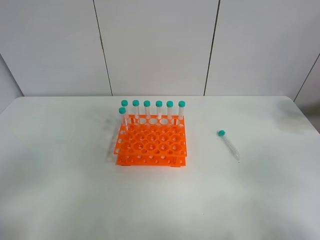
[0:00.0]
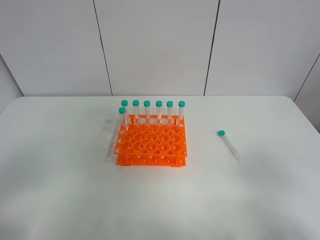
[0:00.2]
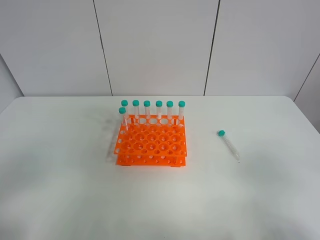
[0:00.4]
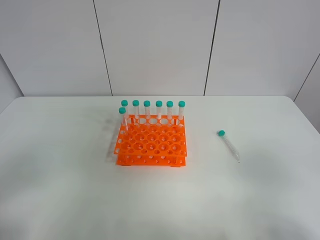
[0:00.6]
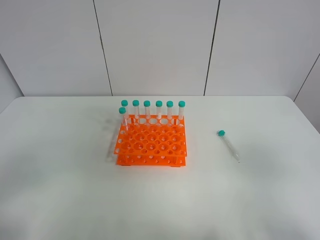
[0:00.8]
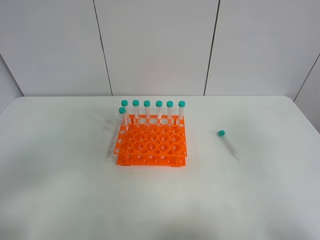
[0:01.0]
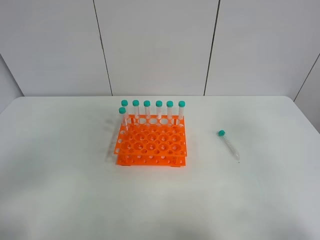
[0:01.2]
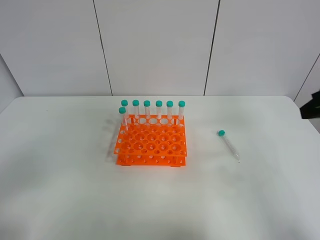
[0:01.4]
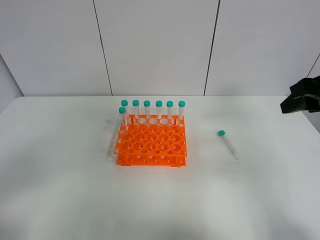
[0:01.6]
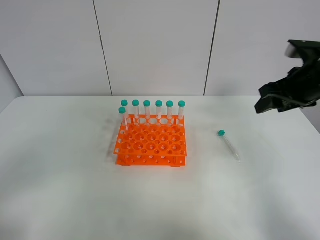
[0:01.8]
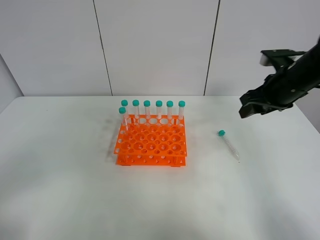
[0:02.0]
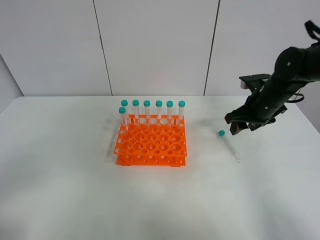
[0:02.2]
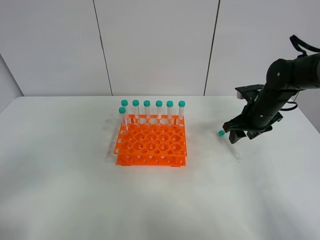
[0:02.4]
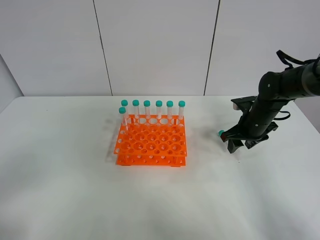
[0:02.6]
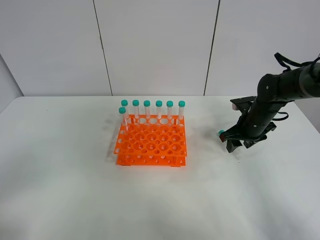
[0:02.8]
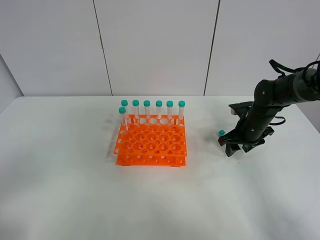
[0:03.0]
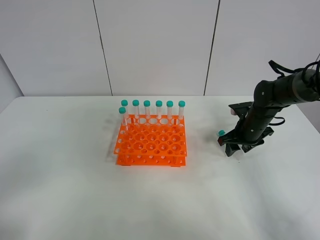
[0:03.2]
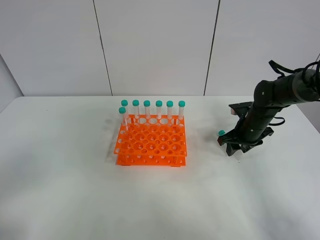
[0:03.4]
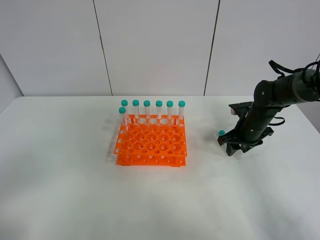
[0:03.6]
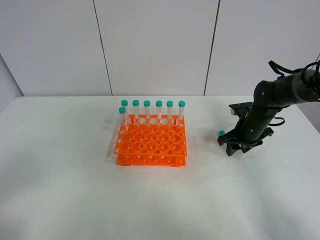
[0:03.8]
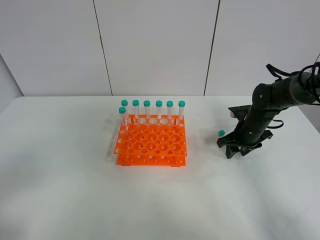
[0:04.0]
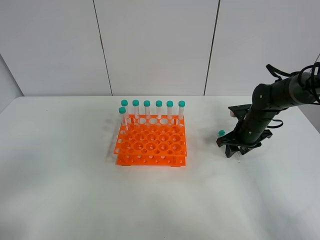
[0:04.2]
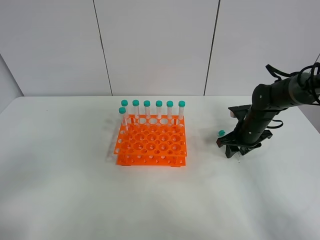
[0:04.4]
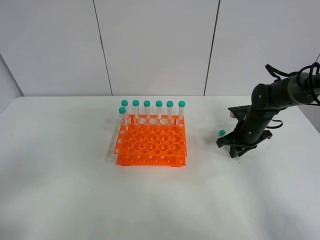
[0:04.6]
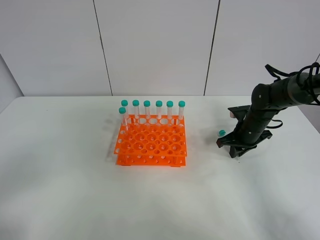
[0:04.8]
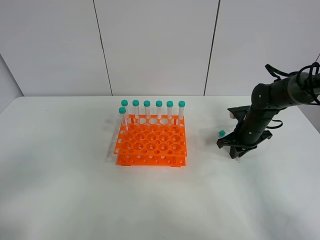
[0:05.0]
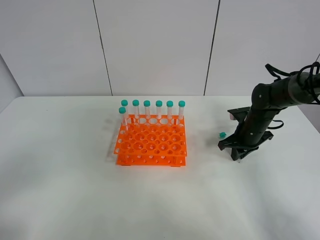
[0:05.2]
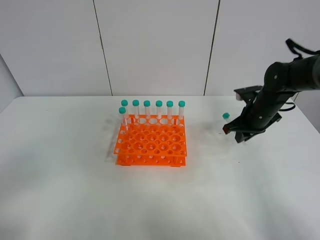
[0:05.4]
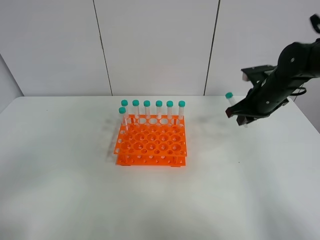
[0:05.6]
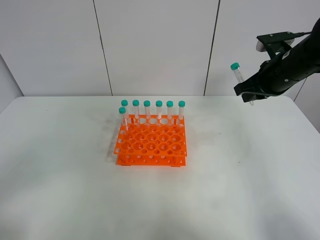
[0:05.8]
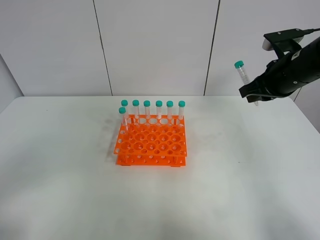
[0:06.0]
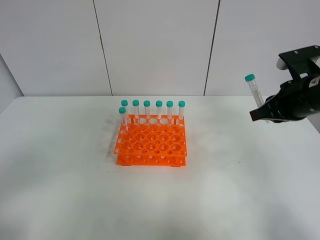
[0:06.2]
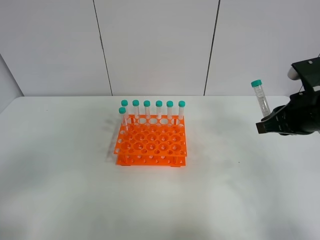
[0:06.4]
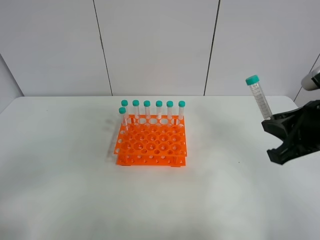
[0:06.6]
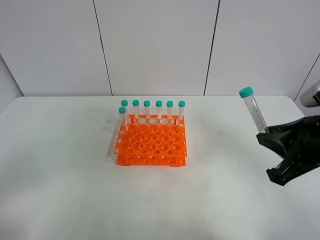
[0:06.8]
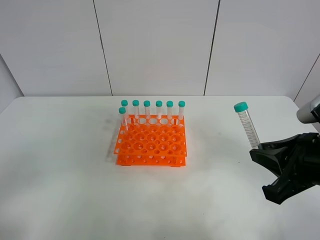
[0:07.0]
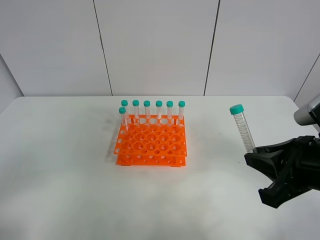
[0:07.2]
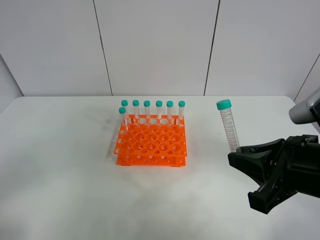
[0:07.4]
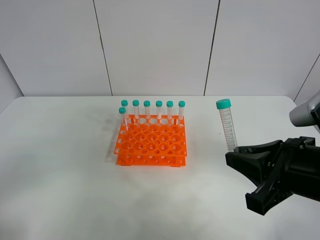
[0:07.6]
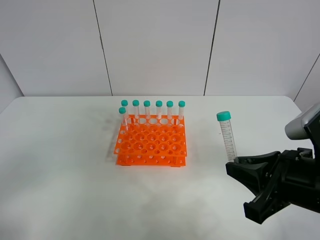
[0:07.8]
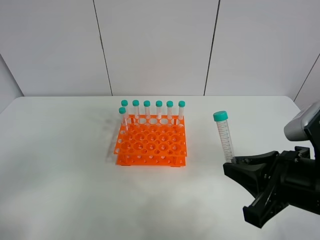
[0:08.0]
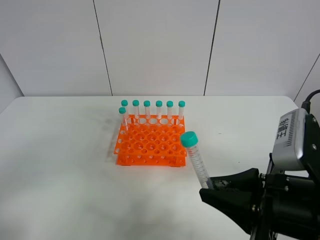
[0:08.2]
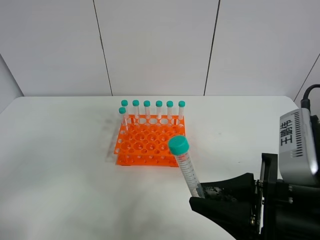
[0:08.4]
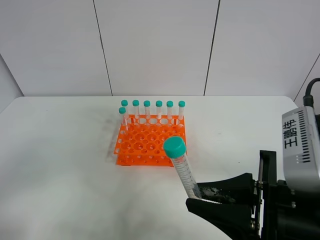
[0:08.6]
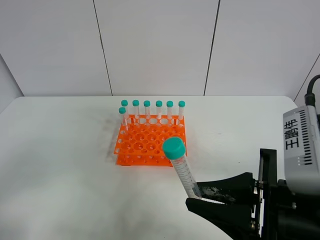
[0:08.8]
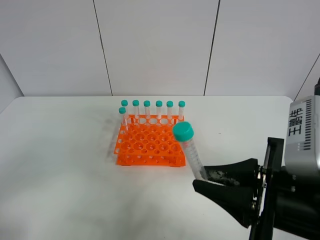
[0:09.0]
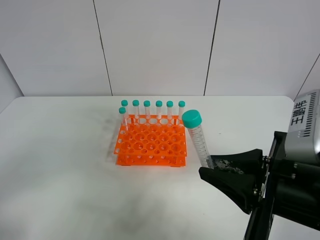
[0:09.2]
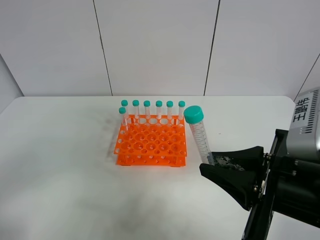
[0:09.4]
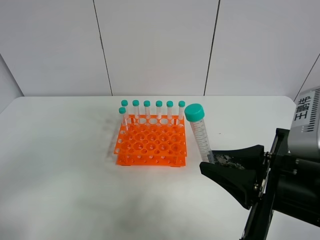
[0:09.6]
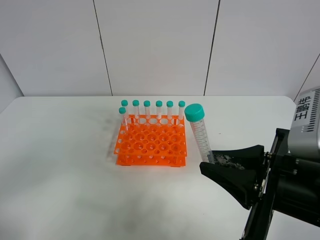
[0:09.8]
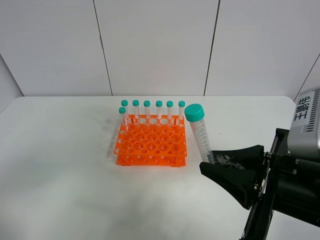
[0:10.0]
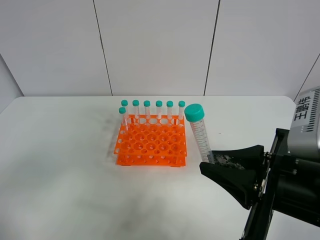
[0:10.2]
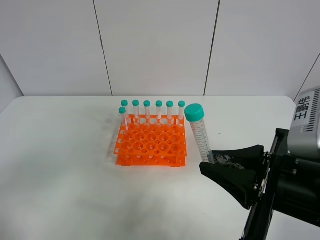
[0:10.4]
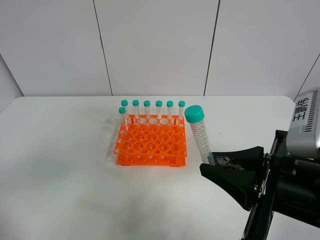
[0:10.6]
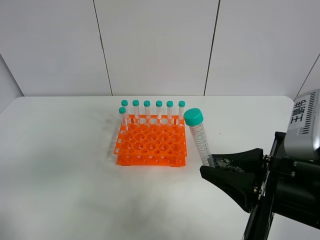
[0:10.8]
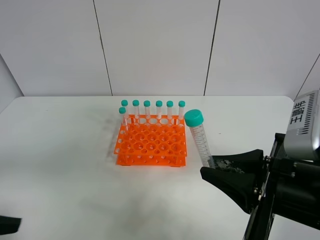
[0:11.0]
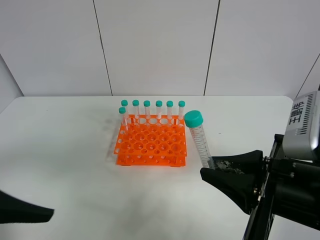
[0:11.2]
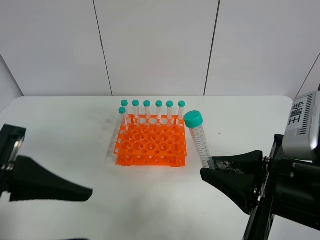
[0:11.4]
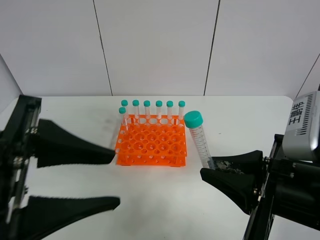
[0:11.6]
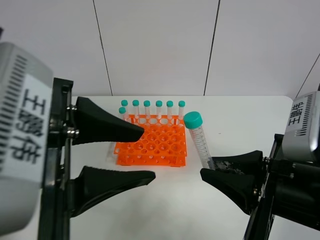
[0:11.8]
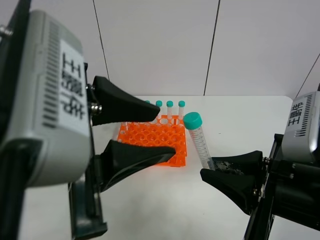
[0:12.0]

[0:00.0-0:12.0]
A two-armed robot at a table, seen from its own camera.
Task of the whole recording: Put the test tube on the table back onto the test tube rack.
Step, 0:00.0 to 0:04.8: Pick up the test tube with the right gripper.
0:00.0 to 0:01.6: The right gripper moves forward, roughly 25 cm.
0:01.6 to 0:03.0: The right gripper heads downward and forward, covering approximately 25 cm.
0:03.0 to 0:04.4: The two grippers keep their place.
0:04.4 to 0:06.0: The right gripper shifts approximately 20 cm upward, and closes up.
0:06.0 to 0:07.6: The right gripper goes some 20 cm backward.
0:10.4 to 0:12.0: The left gripper shifts roughly 25 cm to the right and forward.

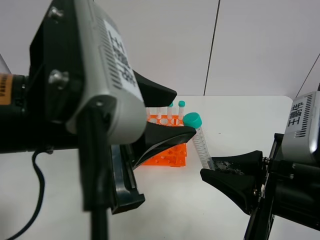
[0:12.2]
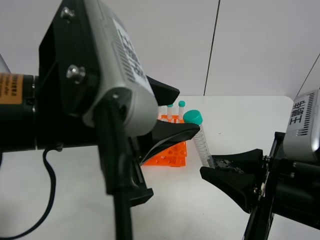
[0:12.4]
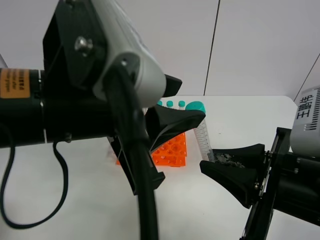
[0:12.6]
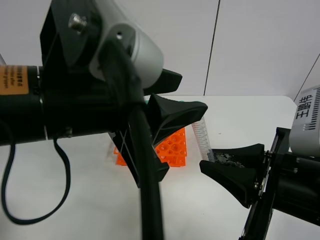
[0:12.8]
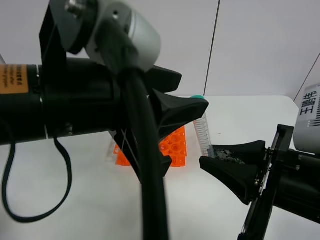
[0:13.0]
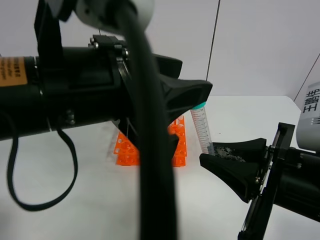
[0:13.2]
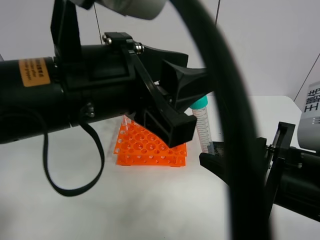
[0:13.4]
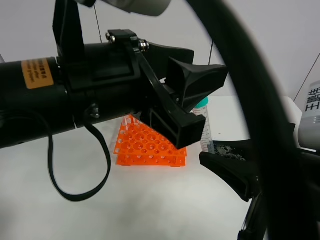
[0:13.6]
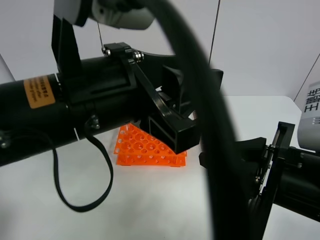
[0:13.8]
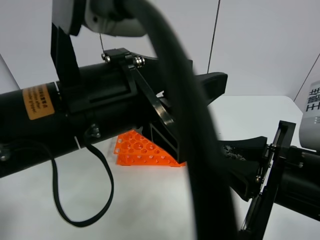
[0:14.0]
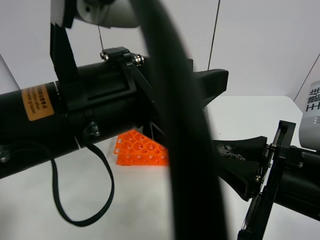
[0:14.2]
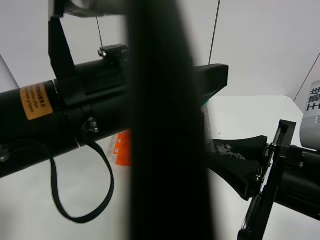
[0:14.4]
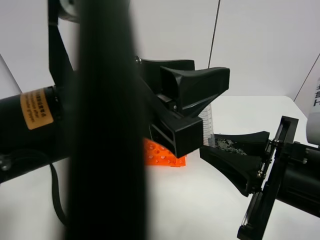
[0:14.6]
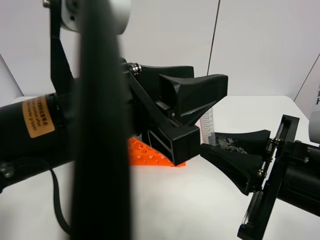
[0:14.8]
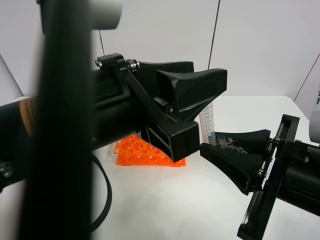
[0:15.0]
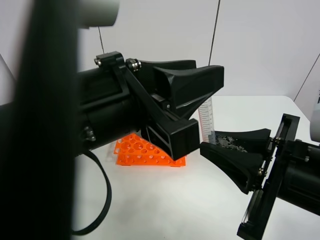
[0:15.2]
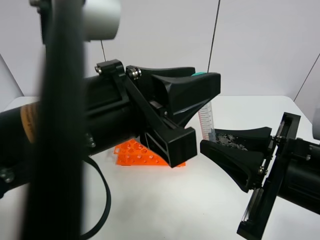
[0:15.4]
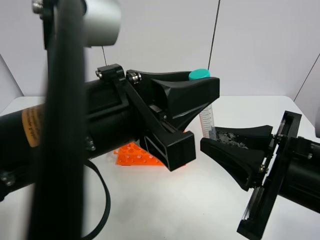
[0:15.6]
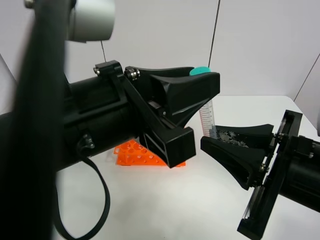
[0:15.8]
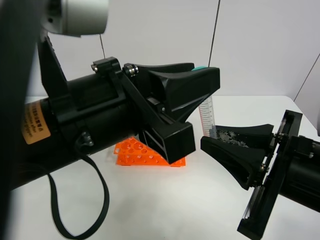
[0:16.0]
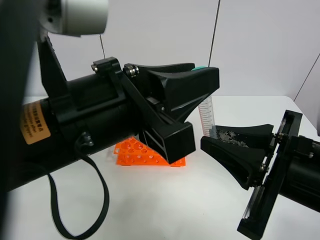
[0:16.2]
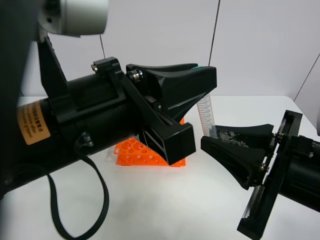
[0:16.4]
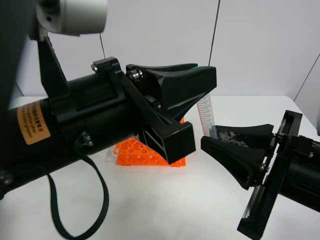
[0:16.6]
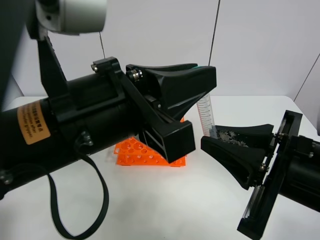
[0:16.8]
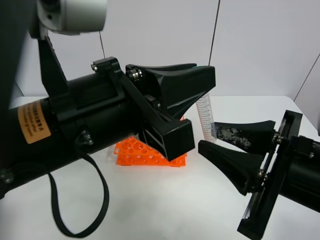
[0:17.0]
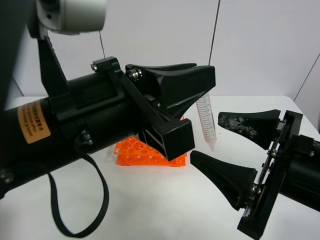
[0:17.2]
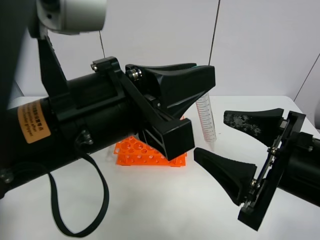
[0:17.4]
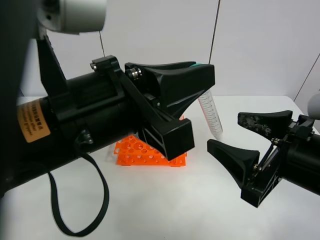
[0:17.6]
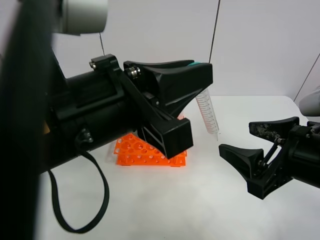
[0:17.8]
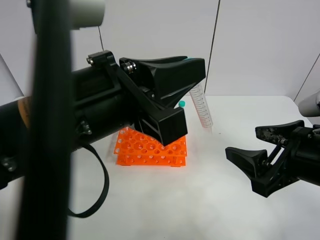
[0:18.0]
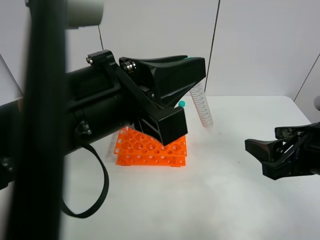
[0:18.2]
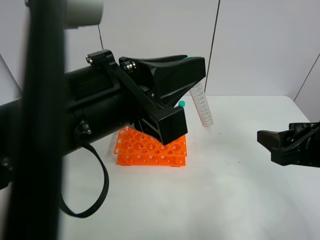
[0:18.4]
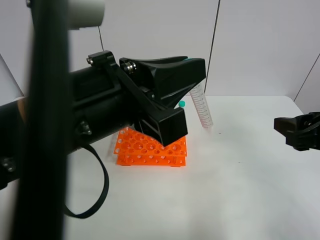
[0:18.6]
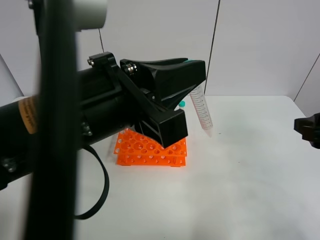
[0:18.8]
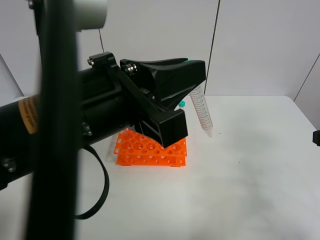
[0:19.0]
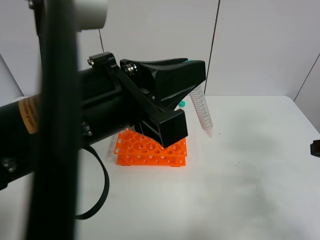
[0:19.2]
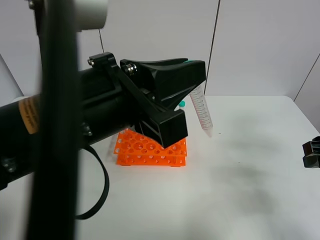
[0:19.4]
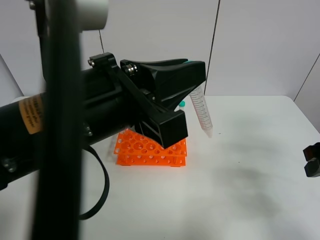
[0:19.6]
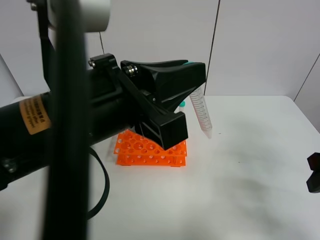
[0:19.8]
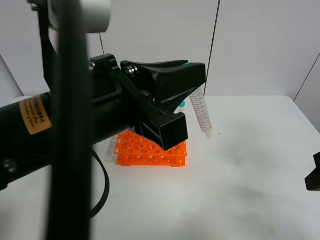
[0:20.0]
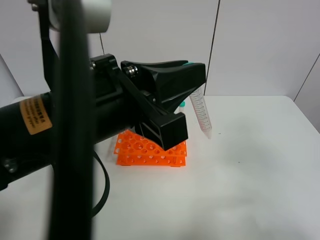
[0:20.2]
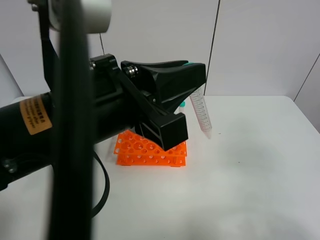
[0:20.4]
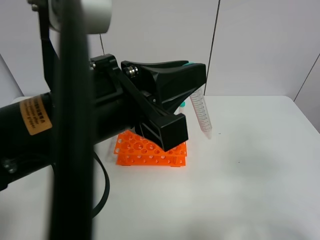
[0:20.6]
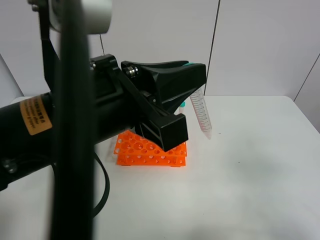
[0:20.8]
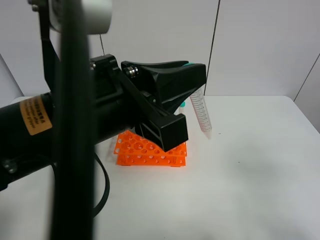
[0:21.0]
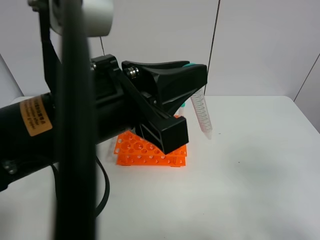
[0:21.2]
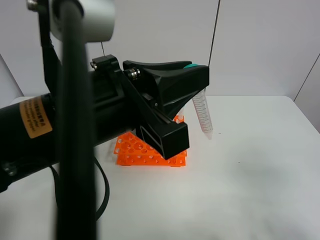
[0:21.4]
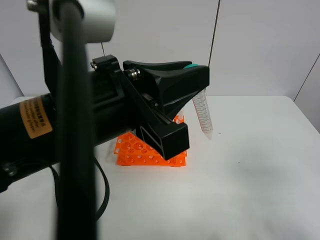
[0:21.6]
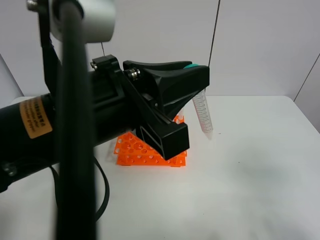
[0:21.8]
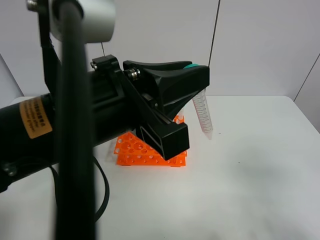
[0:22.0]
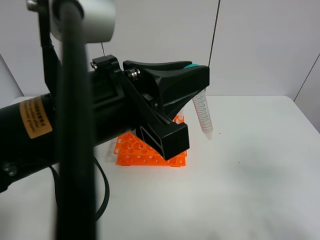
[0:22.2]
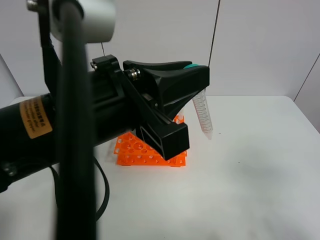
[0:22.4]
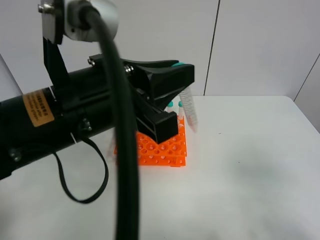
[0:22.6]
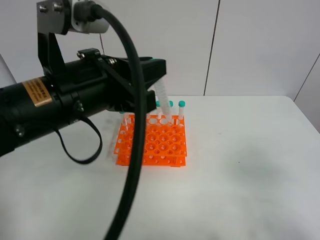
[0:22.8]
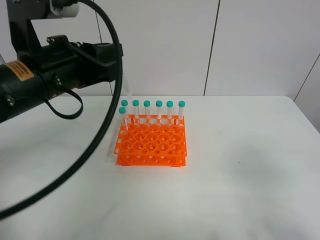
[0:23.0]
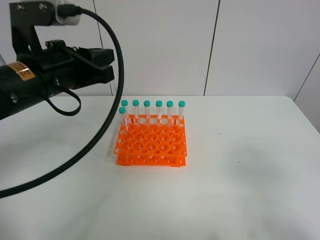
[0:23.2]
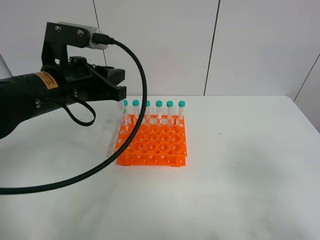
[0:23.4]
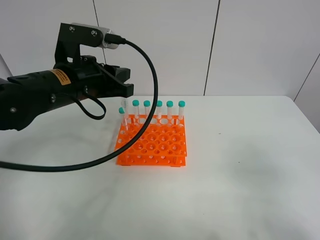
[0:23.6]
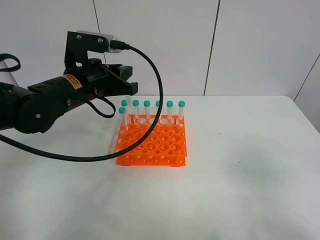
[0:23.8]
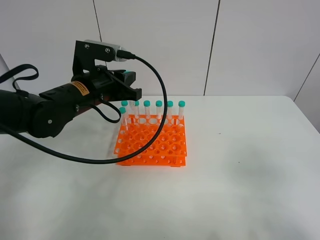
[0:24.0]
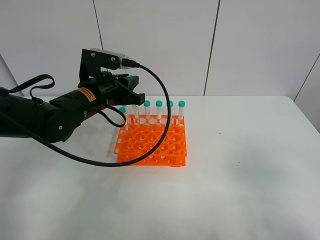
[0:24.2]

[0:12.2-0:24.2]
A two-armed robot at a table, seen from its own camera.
Task of the whole recording: Put the test tube on the table back onto the test tube rack.
Step, 0:12.2 to 0:17.4: Move the test tube from the right gripper to the left gripper.
0:13.8 to 0:15.2: The left gripper closes up.
0:15.2 to 0:16.6: The left gripper closes up.
0:16.6 to 0:18.2: The right gripper goes some 5 cm to the right, and opens up.
0:18.2 to 0:19.8: The right gripper shifts approximately 5 cm to the right.
0:19.8 to 0:21.2: The right gripper is displaced backward by roughly 15 cm.
0:22.6 to 0:24.2: The left gripper travels forward and downward by roughly 20 cm.
